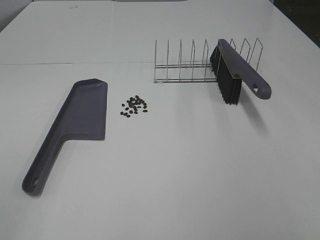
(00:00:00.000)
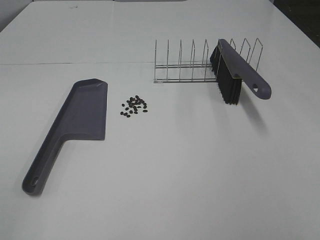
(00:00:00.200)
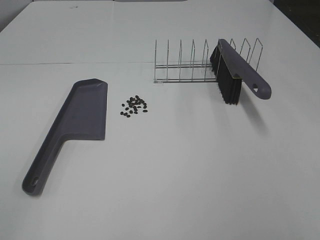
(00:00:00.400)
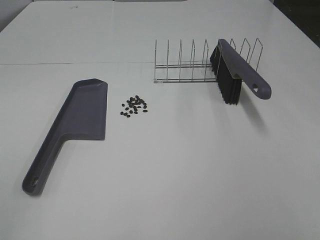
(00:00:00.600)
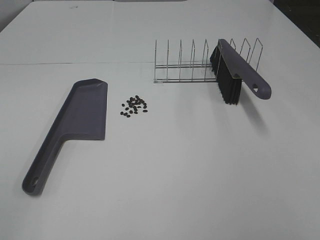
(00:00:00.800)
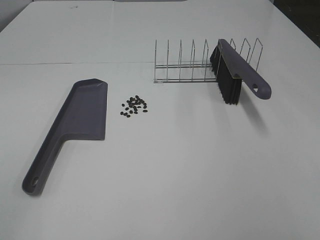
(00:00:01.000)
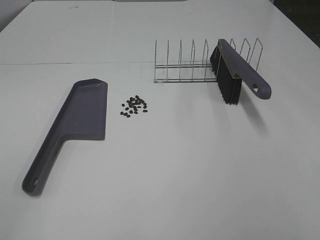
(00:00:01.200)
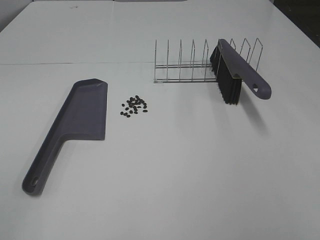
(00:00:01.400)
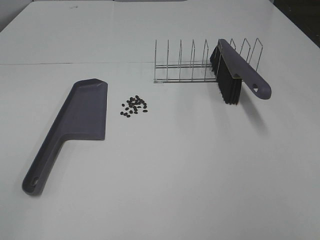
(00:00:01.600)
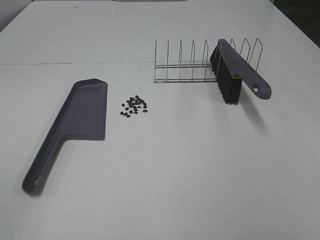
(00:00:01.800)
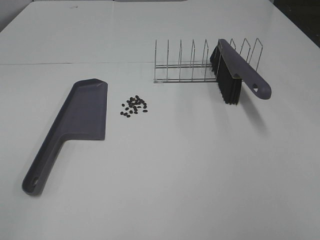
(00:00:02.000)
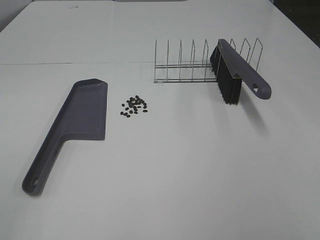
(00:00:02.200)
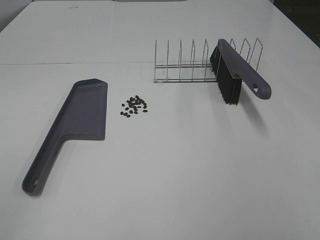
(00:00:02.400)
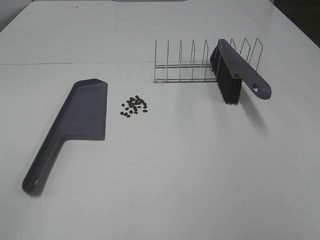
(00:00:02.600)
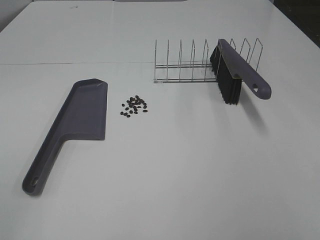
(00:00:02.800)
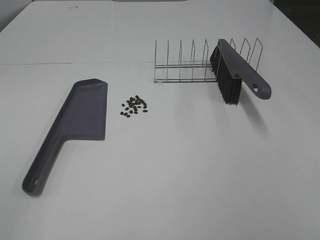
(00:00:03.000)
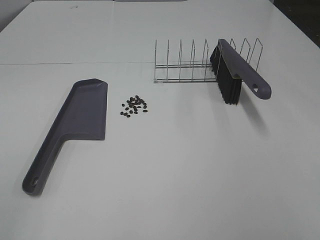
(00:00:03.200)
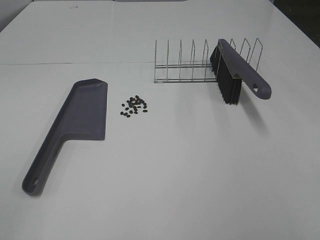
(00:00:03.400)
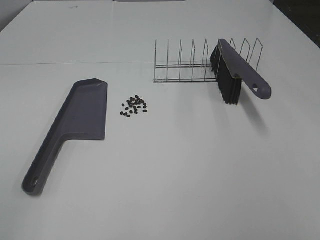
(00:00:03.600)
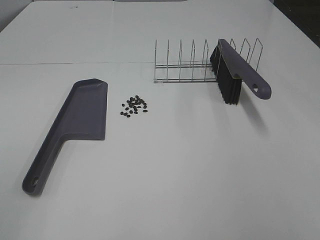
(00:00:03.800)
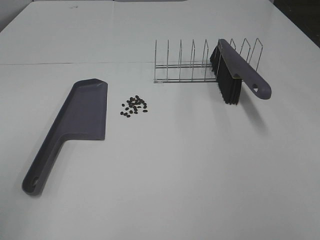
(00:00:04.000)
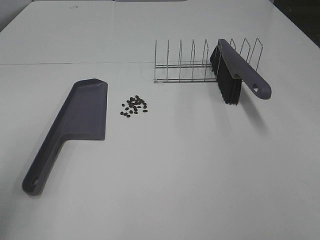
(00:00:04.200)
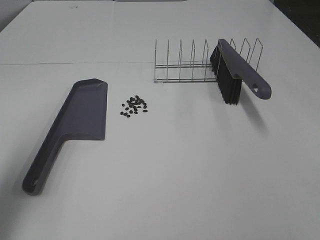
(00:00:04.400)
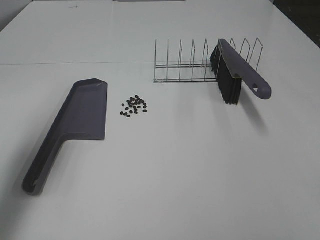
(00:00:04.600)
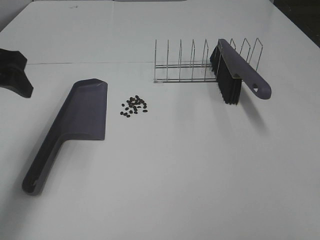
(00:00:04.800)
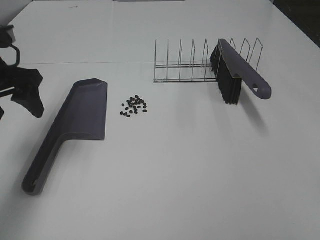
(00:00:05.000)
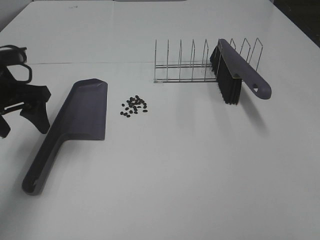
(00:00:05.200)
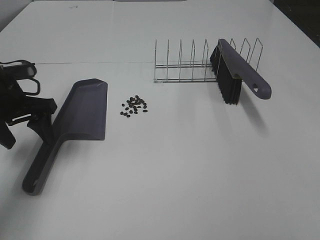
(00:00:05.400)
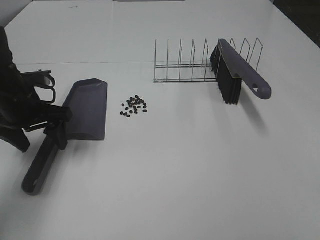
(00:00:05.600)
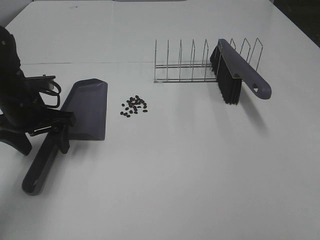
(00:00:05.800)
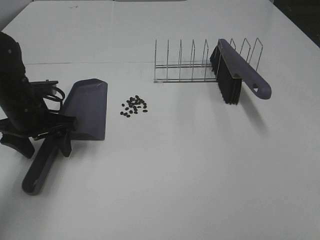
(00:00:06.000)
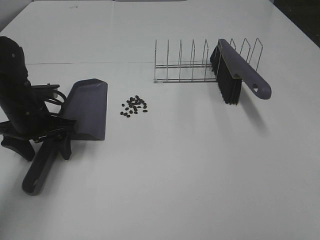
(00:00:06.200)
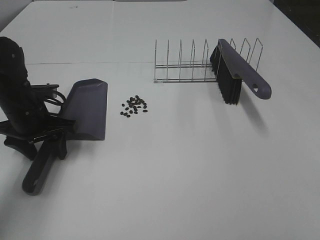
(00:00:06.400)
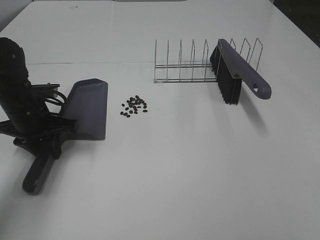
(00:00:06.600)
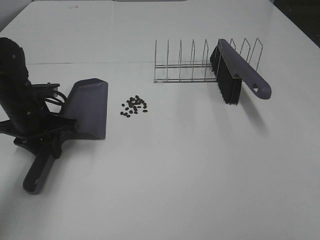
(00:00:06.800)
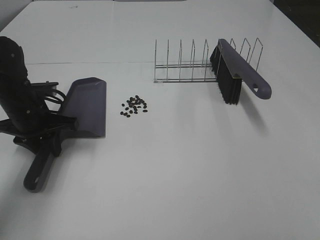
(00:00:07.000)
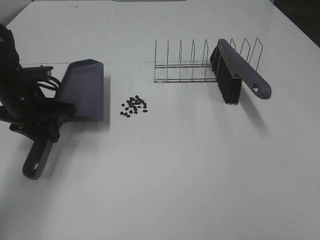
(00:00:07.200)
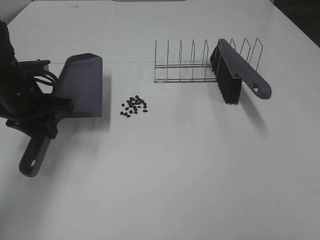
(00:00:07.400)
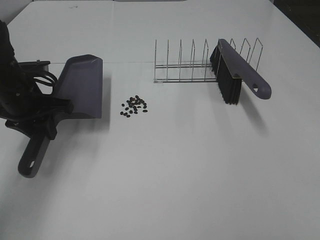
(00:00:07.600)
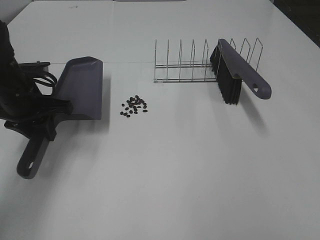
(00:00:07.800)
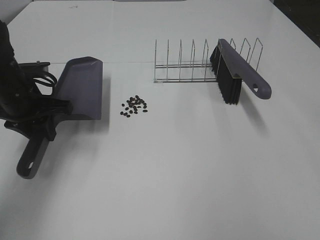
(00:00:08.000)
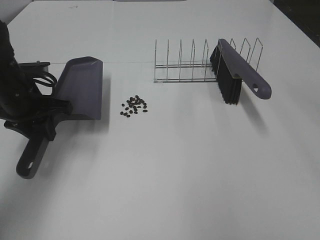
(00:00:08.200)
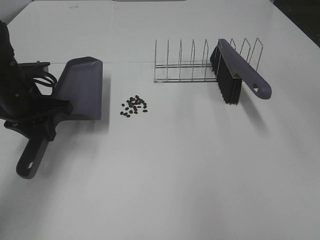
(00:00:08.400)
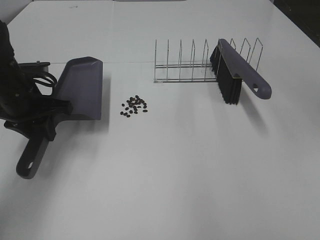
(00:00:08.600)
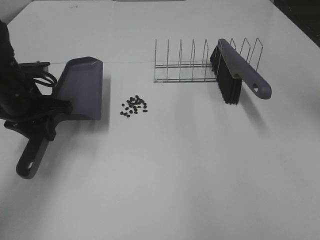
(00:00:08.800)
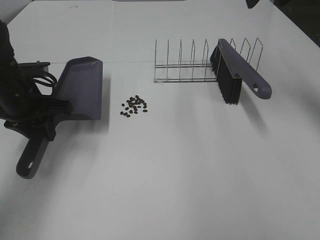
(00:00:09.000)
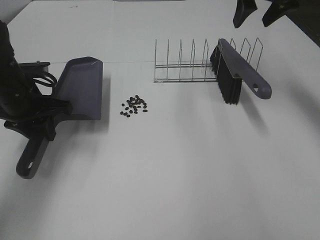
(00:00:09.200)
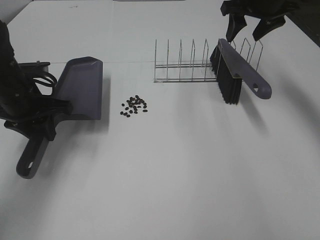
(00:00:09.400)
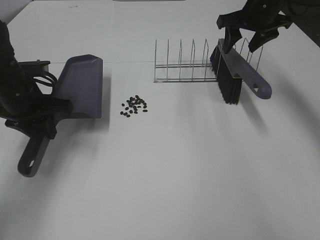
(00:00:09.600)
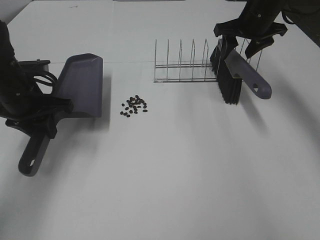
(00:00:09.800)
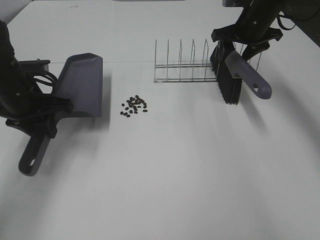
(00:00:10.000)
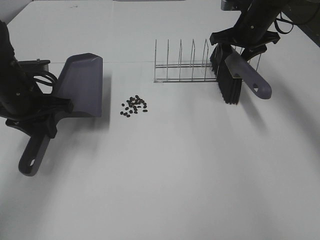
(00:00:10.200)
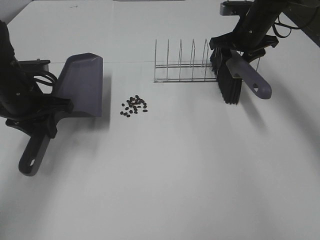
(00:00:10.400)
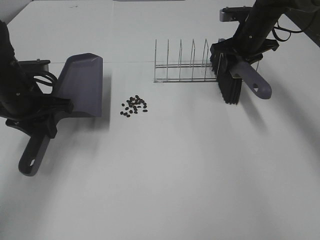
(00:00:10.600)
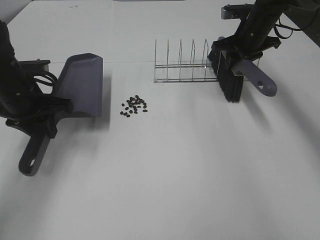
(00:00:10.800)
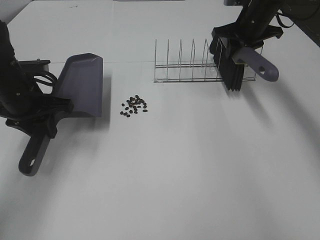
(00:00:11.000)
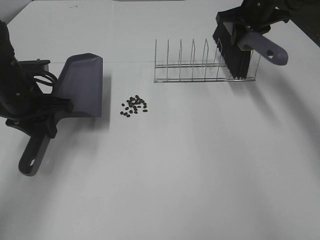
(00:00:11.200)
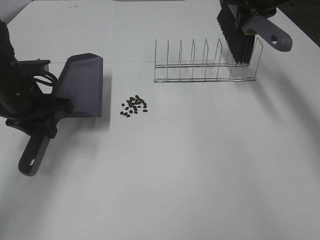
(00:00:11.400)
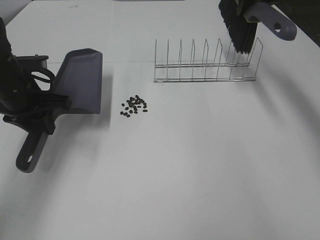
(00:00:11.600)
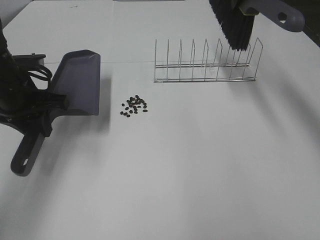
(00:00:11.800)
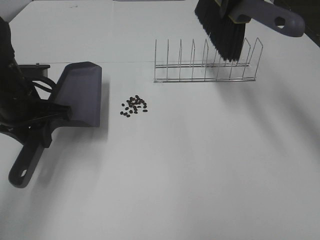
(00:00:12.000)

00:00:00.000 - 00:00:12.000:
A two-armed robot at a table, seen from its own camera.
Task of the whole recording: Sweep Coffee Bean.
Step, 00:00:00.000 - 00:00:06.600: Left hand: grab the dustpan.
Step, 00:00:07.400 - 00:00:10.600: Right hand:grab the broom.
00:00:00.000 - 00:00:03.000: Neither gripper changes place.
00:00:03.000 - 00:00:04.400: The left gripper travels forward by some 20 cm.
00:00:04.400 - 00:00:06.000: The left gripper moves downward and forward, some 25 cm.
00:00:06.000 - 00:00:07.600: The left gripper closes its fingers.
00:00:07.600 - 00:00:09.000: The right gripper travels forward by roughly 40 cm.
00:00:09.000 - 00:00:10.400: The right gripper goes about 20 cm downward and forward.
00:00:10.400 - 00:00:12.000: The right gripper moves upward and backward, some 15 cm, and closes.

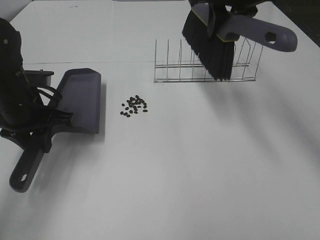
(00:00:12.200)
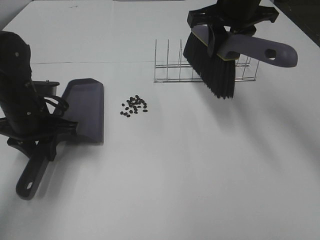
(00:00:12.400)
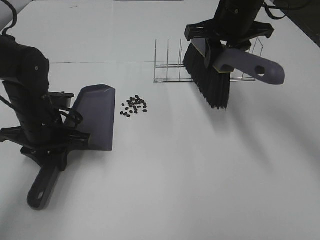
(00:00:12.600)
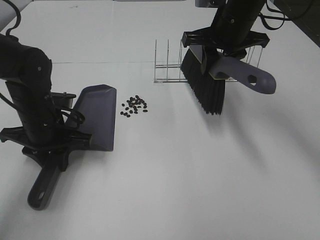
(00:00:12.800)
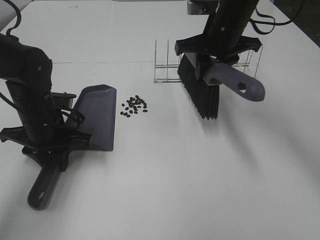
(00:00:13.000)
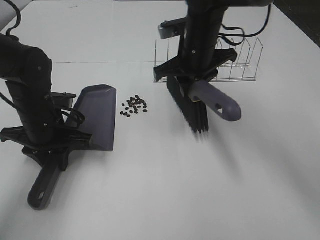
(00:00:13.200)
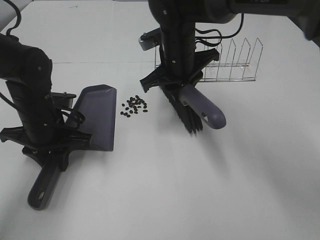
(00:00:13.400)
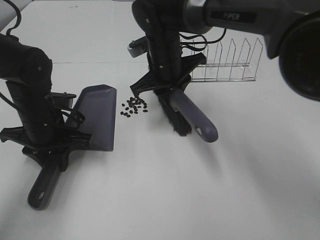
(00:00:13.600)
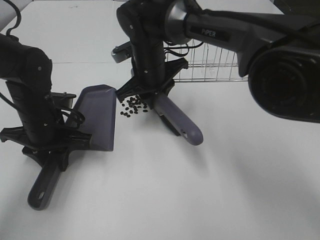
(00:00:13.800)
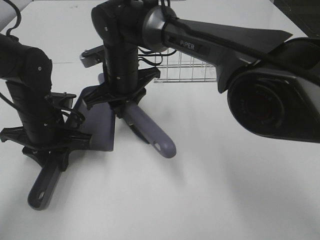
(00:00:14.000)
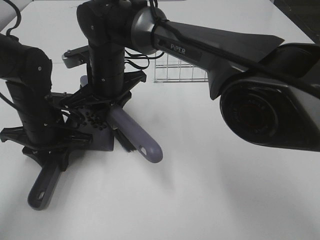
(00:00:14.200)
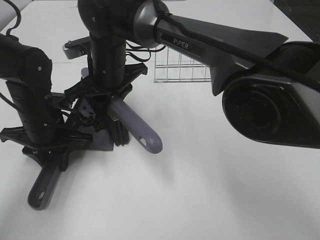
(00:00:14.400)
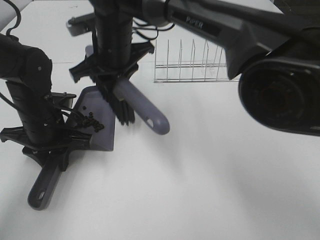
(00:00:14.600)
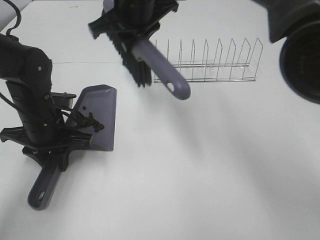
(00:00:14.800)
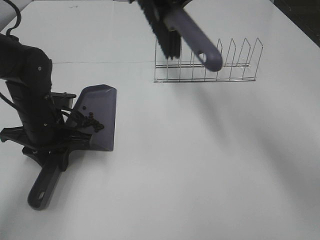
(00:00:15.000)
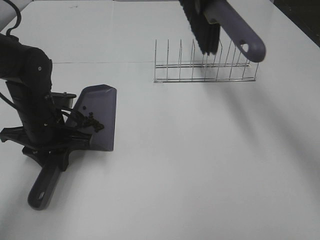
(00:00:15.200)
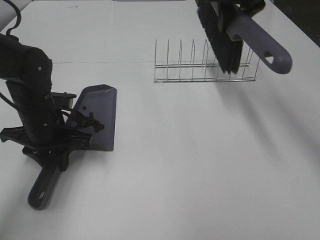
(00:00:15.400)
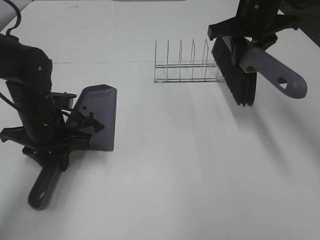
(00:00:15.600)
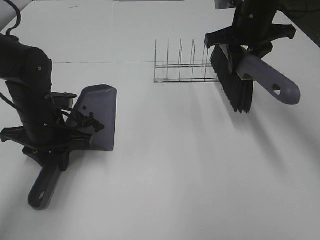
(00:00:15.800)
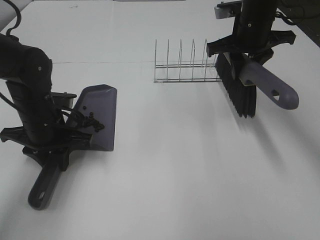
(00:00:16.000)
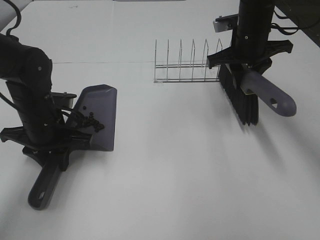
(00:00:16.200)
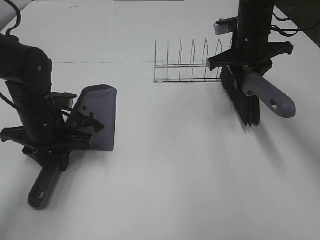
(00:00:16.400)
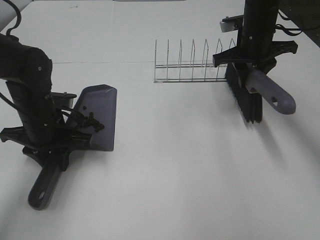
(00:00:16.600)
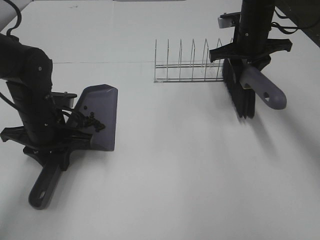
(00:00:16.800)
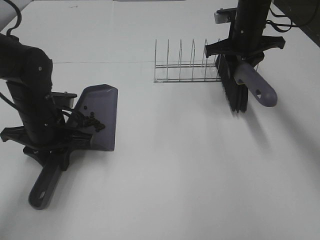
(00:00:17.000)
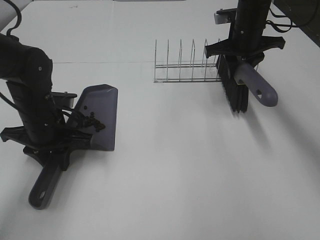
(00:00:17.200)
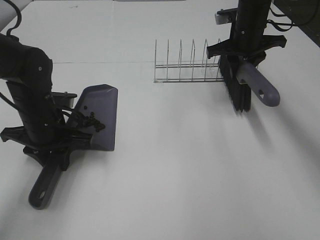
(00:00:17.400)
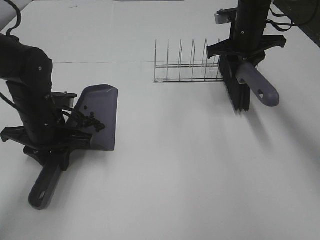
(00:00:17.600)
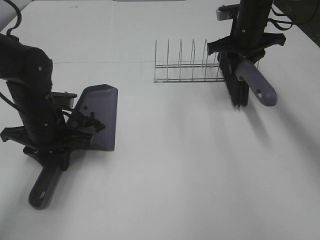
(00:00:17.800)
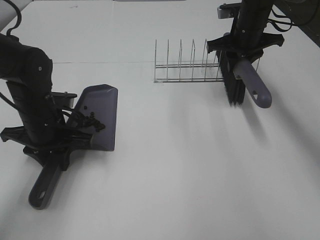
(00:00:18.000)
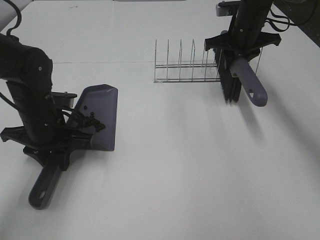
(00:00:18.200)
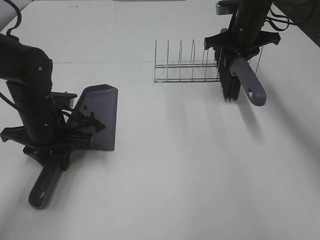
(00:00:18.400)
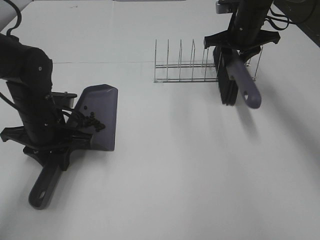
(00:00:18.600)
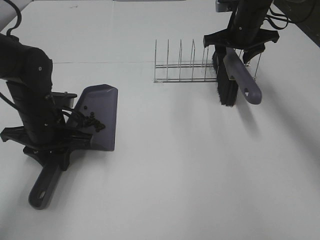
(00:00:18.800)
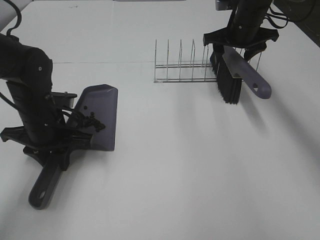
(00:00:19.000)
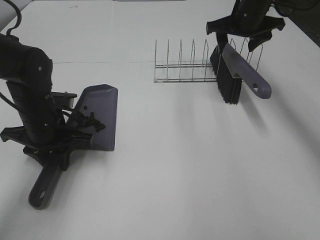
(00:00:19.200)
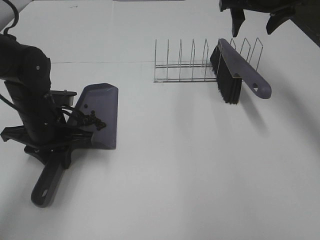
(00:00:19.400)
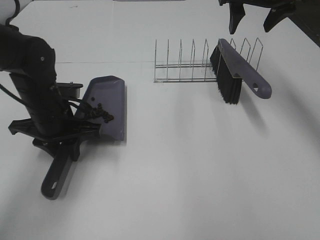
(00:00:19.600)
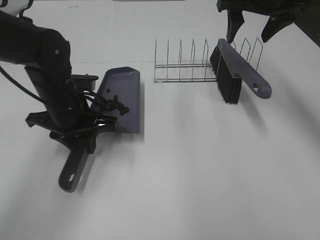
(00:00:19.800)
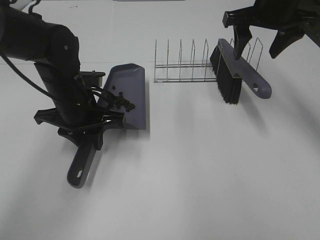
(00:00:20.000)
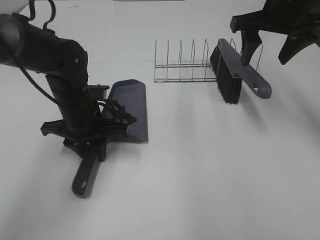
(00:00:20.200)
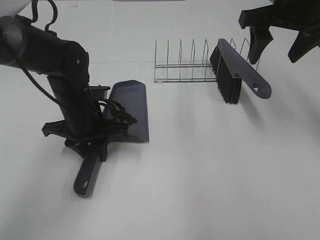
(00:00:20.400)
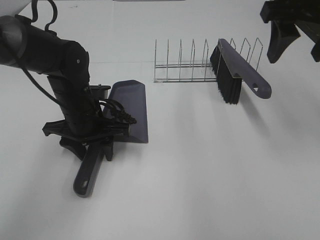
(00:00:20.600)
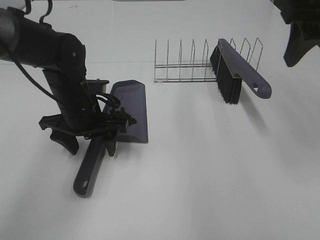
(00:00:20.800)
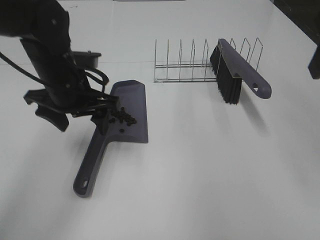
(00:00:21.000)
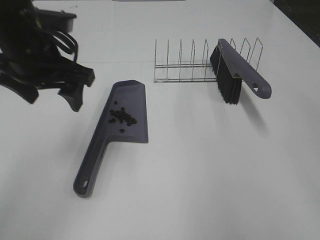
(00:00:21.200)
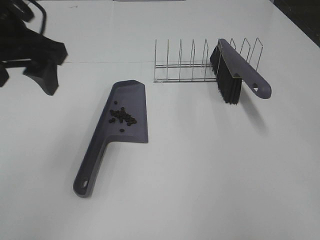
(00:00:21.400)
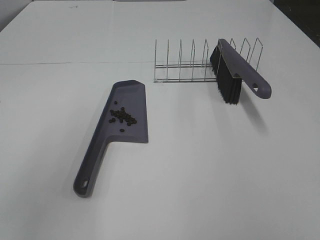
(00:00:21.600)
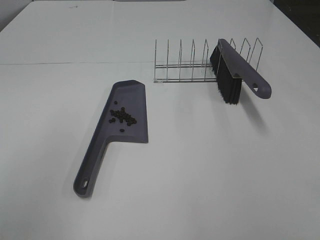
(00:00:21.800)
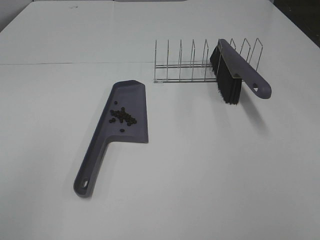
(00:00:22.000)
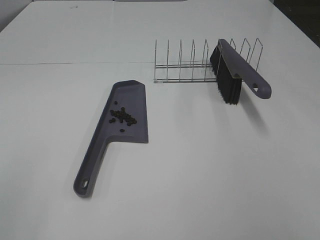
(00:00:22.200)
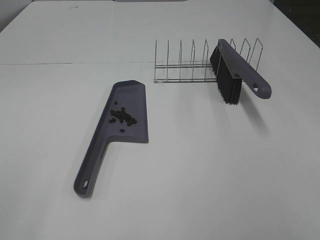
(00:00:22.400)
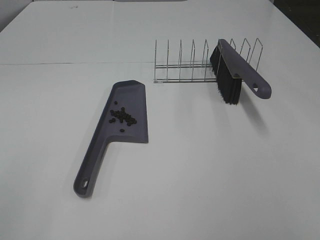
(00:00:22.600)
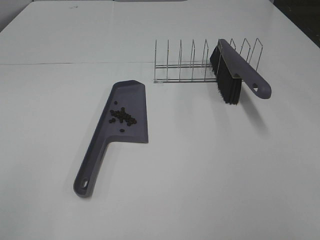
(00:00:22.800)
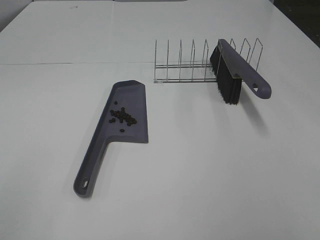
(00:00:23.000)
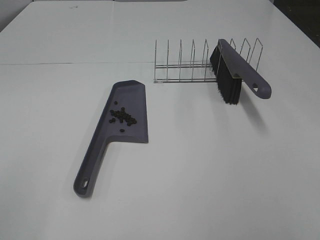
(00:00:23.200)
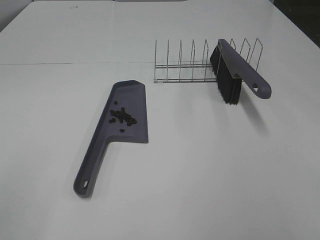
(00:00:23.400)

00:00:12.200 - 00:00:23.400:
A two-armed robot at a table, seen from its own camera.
Task of the whole recording: Sweep Coffee Bean.
Step, 00:00:12.200 - 00:00:14.400: Right hand:sweep the coffee beans into the dustpan.
Step, 00:00:14.600 - 00:00:19.000: Right hand:place the broom on the rack.
Step, 00:00:19.200 - 00:00:20.600: Left hand:place the dustpan on the table.
00:00:12.200 - 00:00:13.800: The right gripper shifts some 25 cm downward and to the left. Meanwhile the left gripper moves approximately 5 cm.
00:00:13.800 - 00:00:15.400: The right gripper shifts about 25 cm to the right and upward.
00:00:15.400 - 00:00:17.000: The right gripper travels downward by about 10 cm.
00:00:17.000 - 00:00:18.600: There are only small adjustments of the grippers.
00:00:18.600 - 00:00:20.200: The right gripper moves backward and upward, about 15 cm, and opens; the left gripper goes some 5 cm to the right.
00:00:20.200 - 00:00:21.800: The right gripper moves backward, roughly 35 cm. The left gripper goes approximately 35 cm backward, upward and to the left, and opens.
00:00:21.800 - 00:00:23.400: The left gripper goes some 15 cm backward and to the left.
